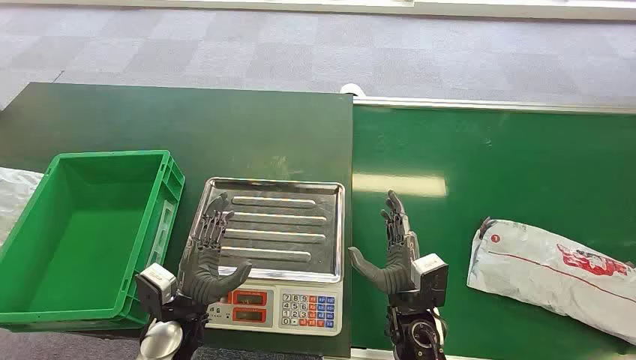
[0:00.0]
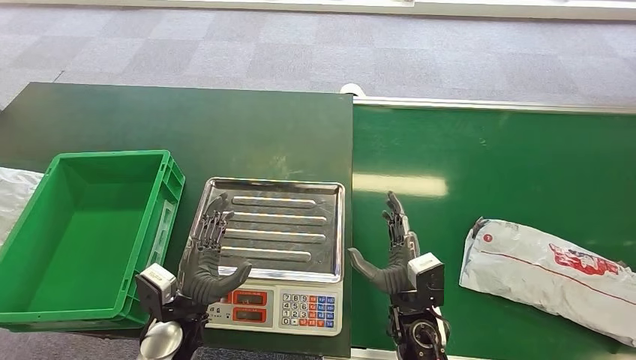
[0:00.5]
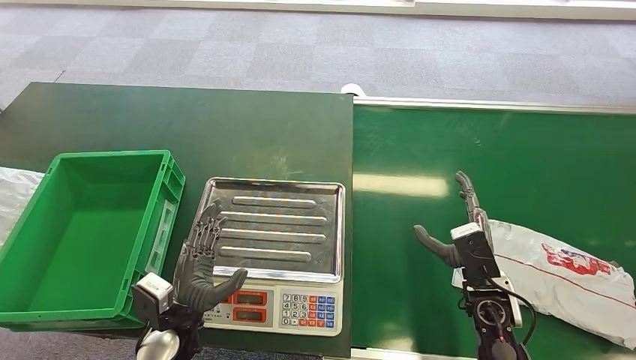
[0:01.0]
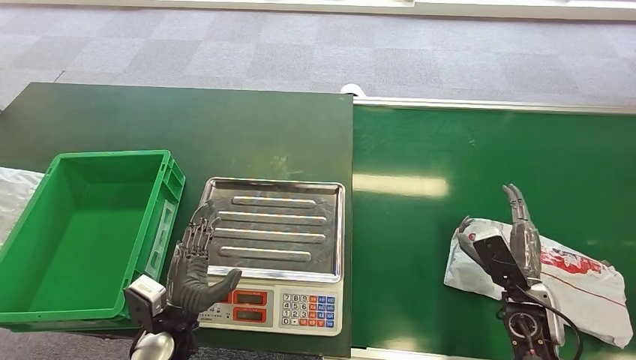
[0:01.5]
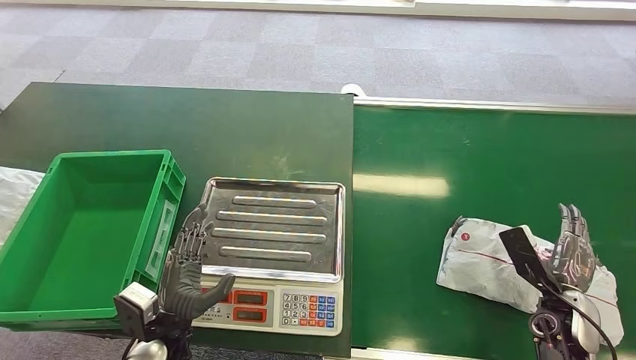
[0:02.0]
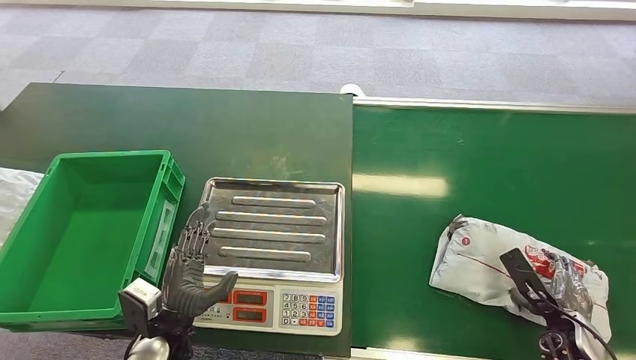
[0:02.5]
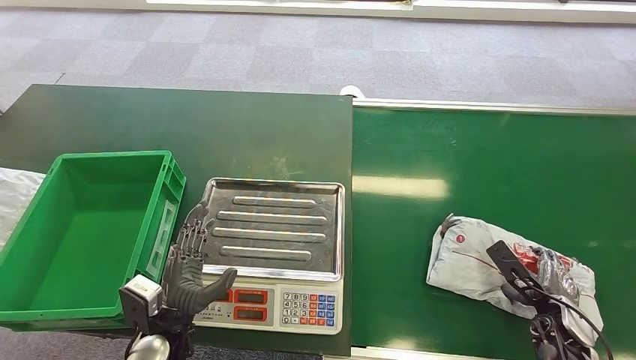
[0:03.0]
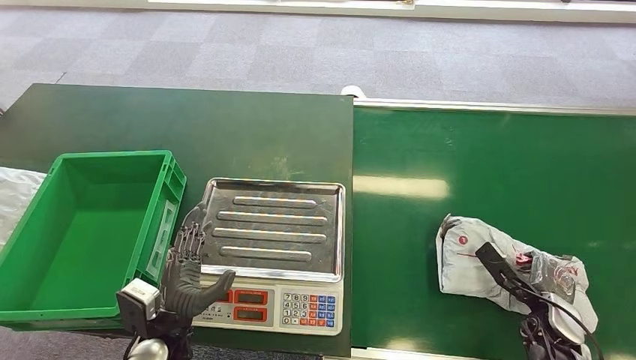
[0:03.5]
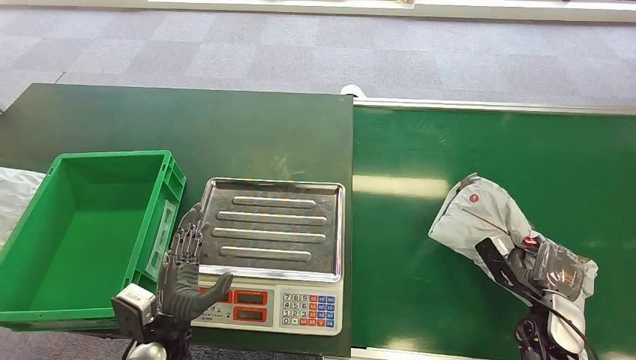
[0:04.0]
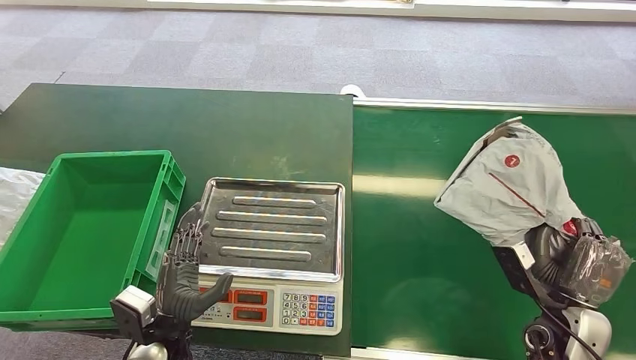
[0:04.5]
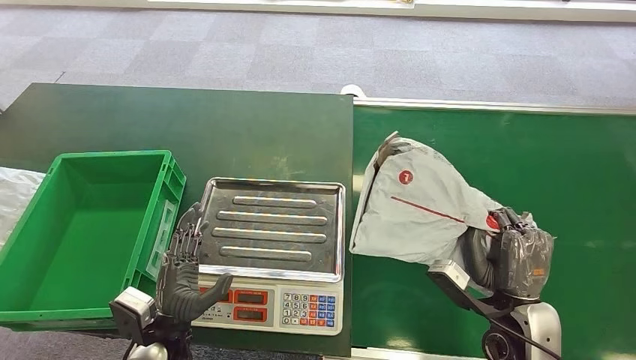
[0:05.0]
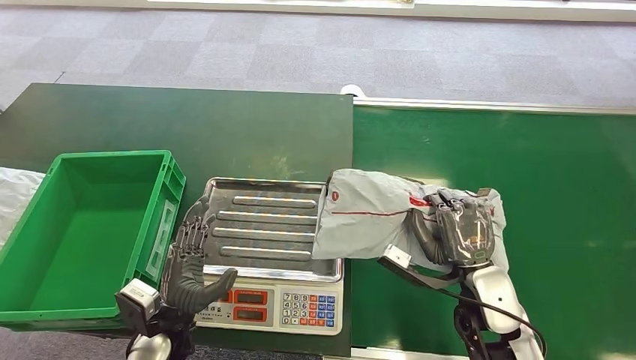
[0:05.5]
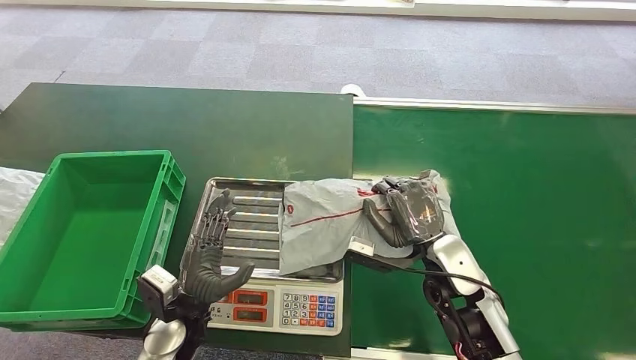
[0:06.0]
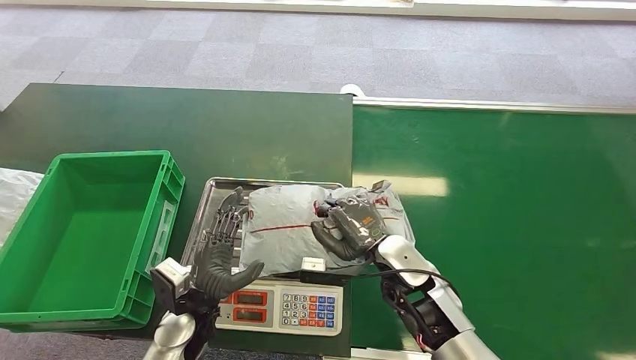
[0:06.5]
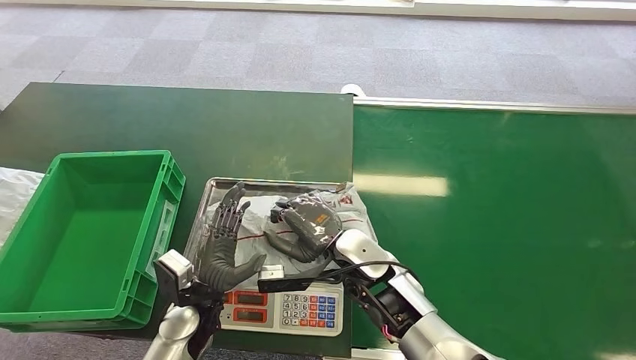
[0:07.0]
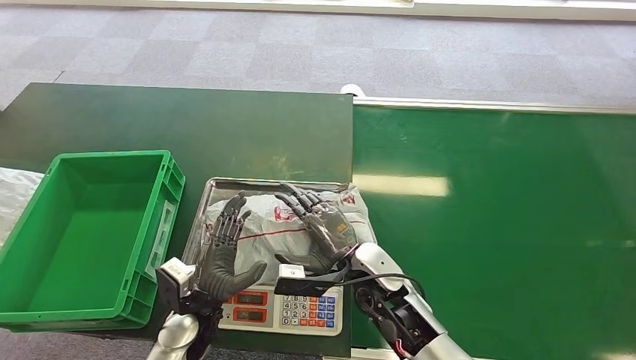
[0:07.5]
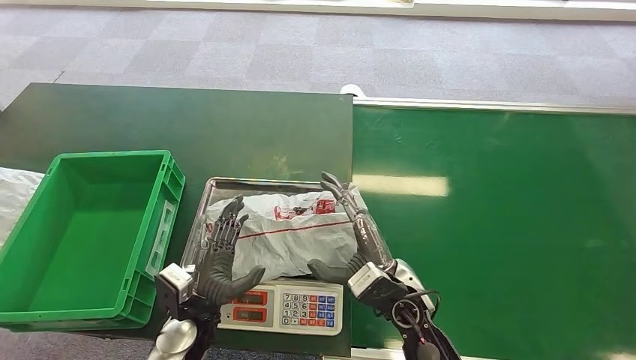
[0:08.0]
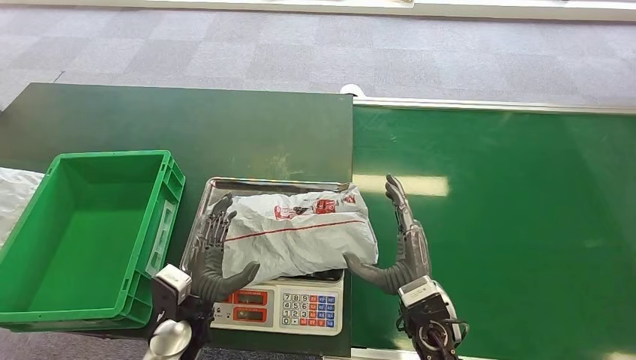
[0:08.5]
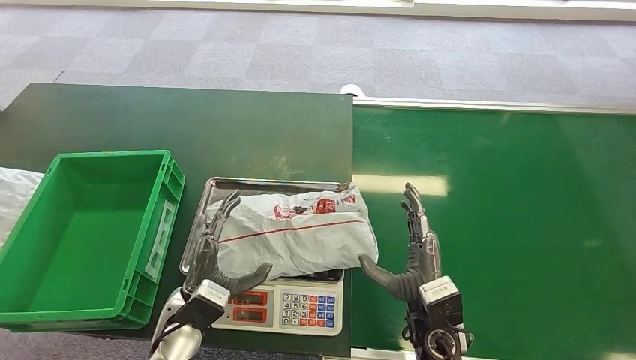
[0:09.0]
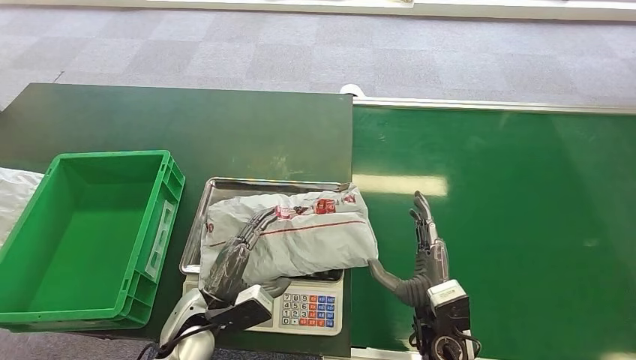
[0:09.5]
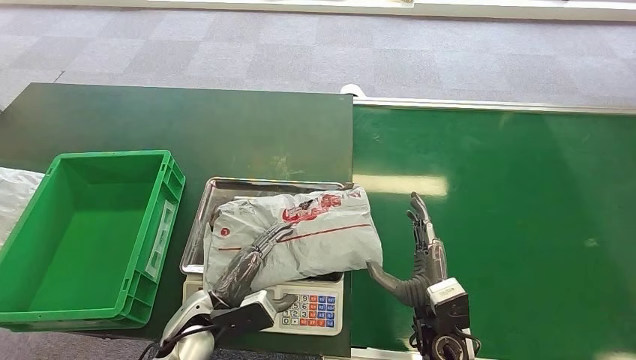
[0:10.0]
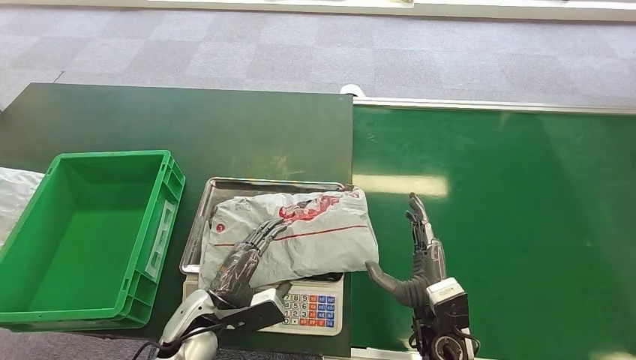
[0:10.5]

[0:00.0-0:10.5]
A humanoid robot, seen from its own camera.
Step, 0:00.0 to 0:04.0: Pick up the package from the conveyor belt.
Step, 0:05.0 to 0:07.5: Place the package onto the inbound machine.
0:06.5 to 0:08.5: The right hand goes roughly 10 cm backward.

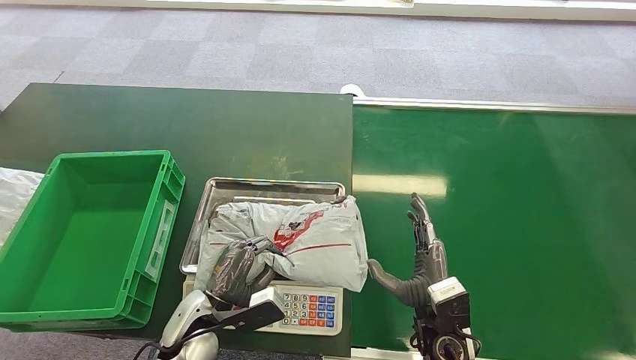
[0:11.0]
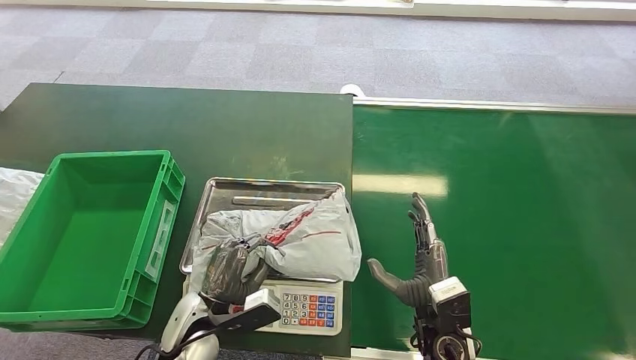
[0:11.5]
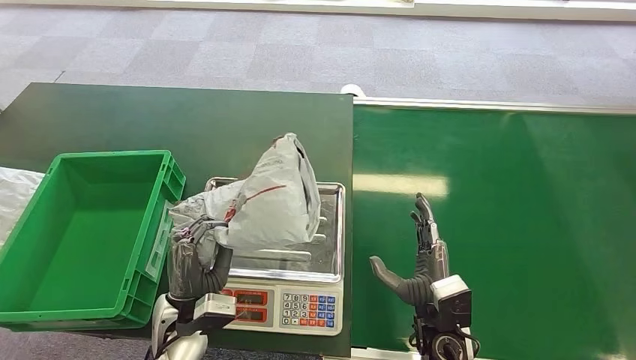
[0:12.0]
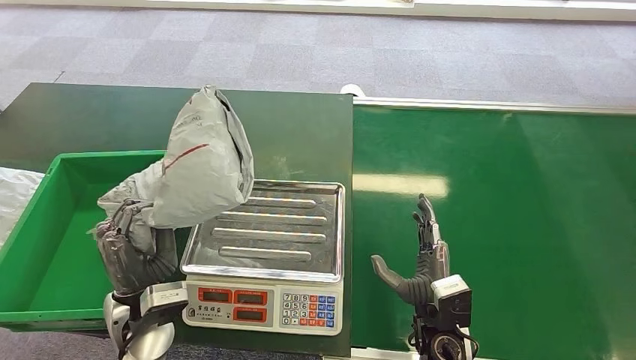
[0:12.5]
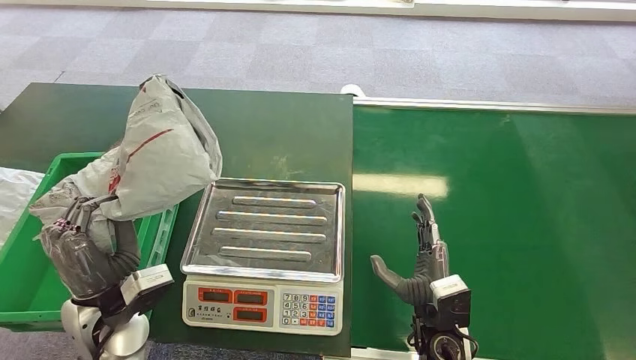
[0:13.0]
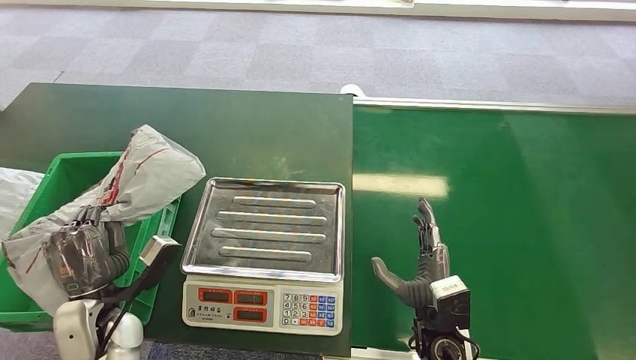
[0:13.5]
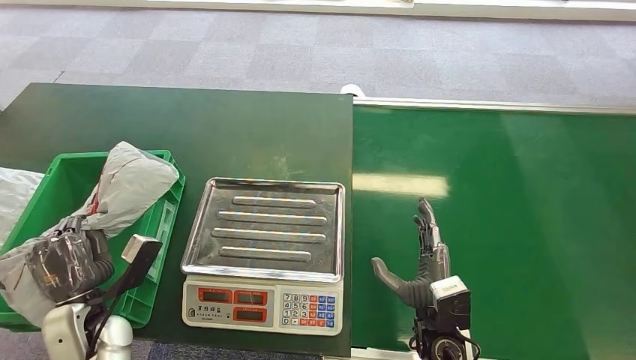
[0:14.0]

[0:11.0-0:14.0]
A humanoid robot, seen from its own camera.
Step, 0:13.0 to 0:14.0: Place the package into the parcel locker.
0:11.0 to 0:12.5: The left hand goes some 5 cm upward.
0:12.5 to 0:14.0: The left hand is displaced to the left by about 10 cm.
